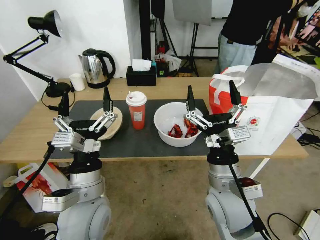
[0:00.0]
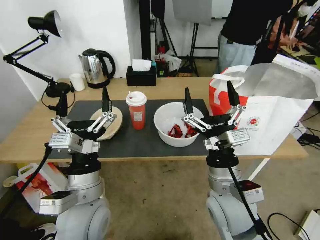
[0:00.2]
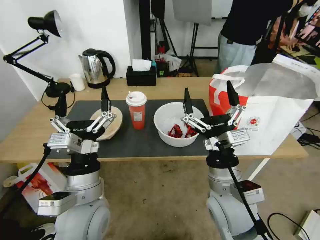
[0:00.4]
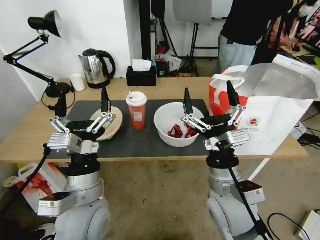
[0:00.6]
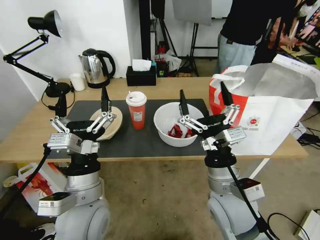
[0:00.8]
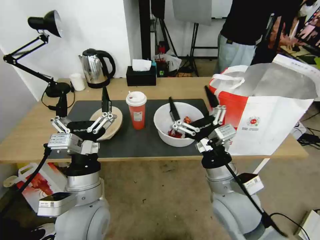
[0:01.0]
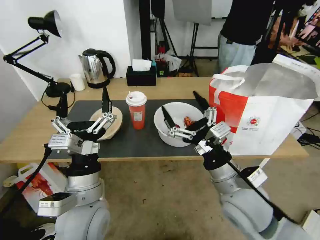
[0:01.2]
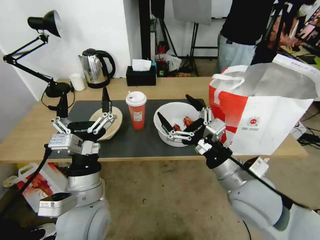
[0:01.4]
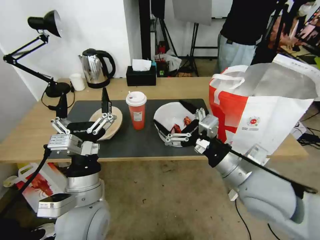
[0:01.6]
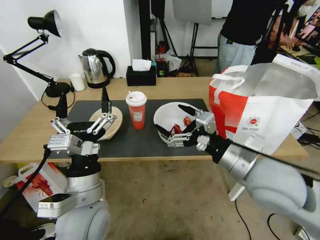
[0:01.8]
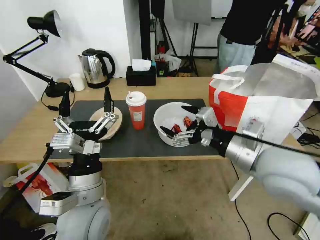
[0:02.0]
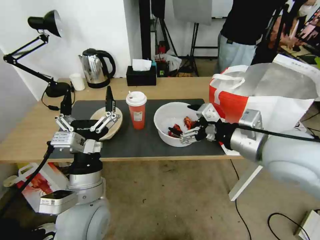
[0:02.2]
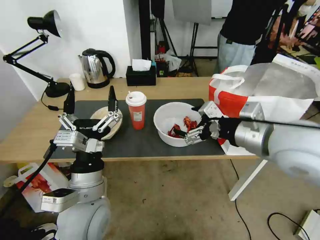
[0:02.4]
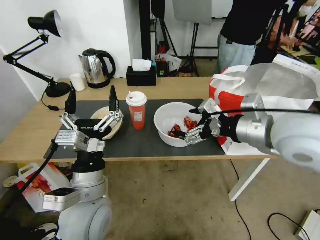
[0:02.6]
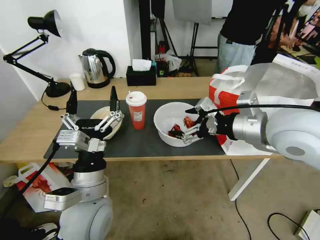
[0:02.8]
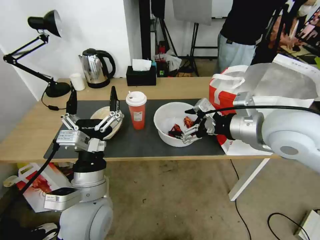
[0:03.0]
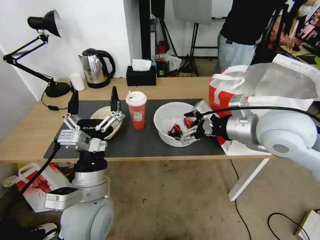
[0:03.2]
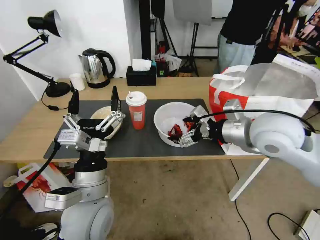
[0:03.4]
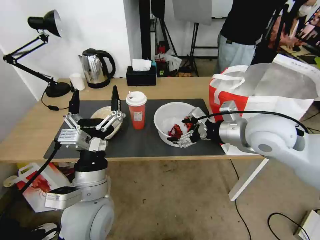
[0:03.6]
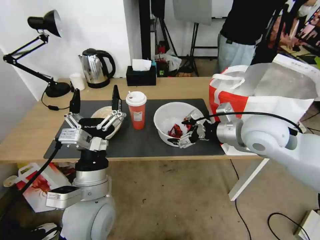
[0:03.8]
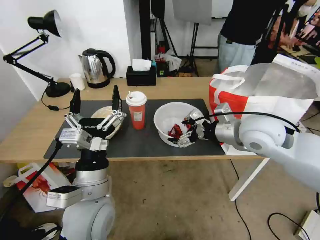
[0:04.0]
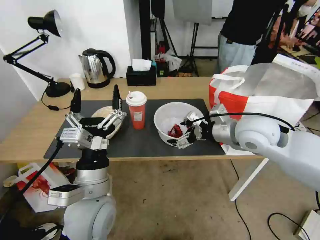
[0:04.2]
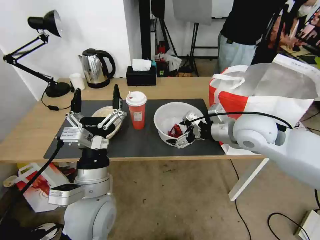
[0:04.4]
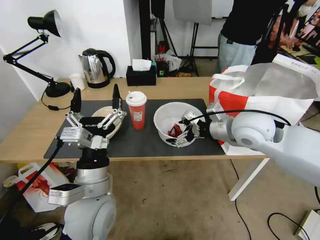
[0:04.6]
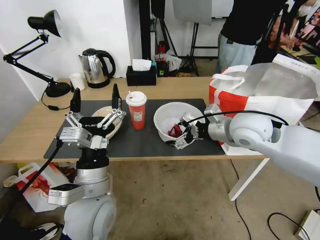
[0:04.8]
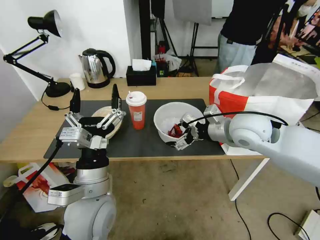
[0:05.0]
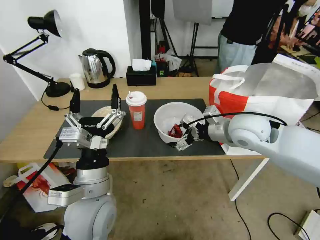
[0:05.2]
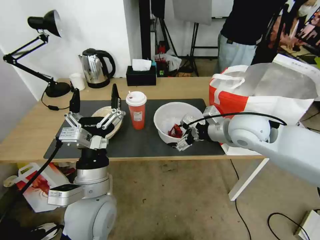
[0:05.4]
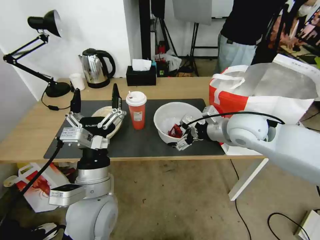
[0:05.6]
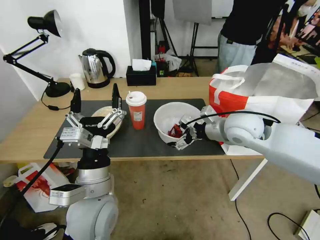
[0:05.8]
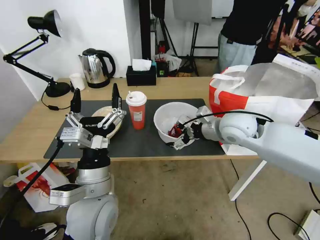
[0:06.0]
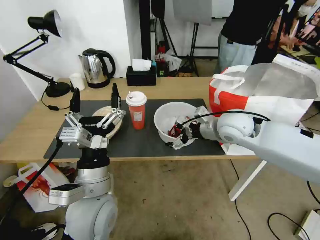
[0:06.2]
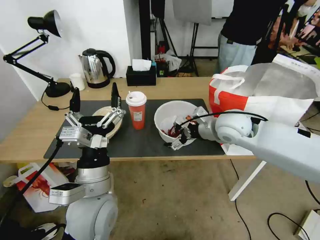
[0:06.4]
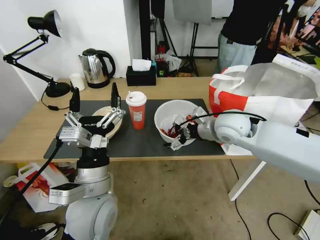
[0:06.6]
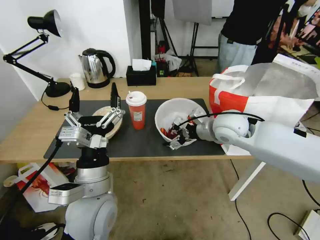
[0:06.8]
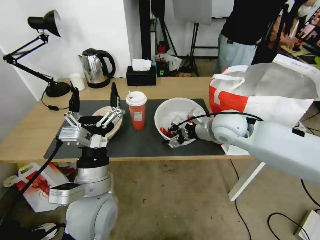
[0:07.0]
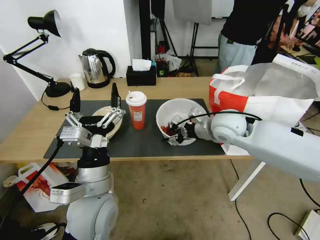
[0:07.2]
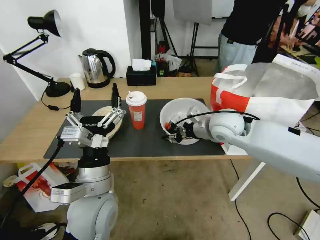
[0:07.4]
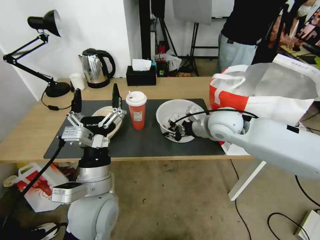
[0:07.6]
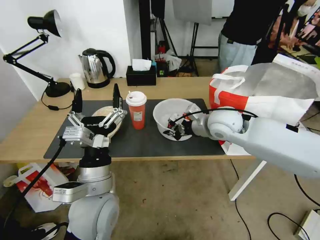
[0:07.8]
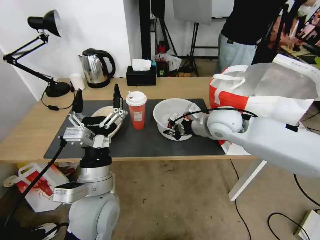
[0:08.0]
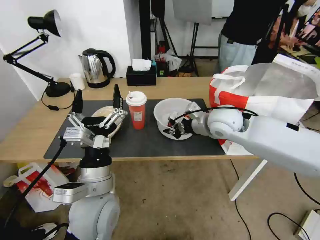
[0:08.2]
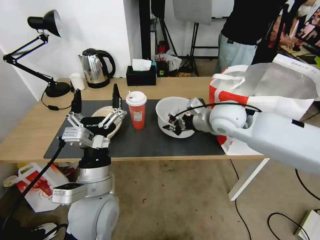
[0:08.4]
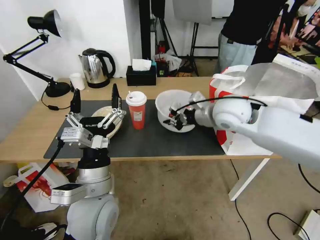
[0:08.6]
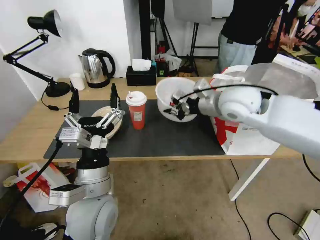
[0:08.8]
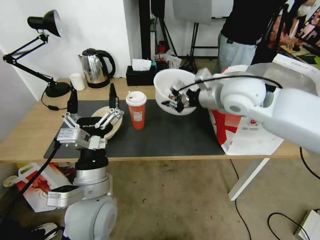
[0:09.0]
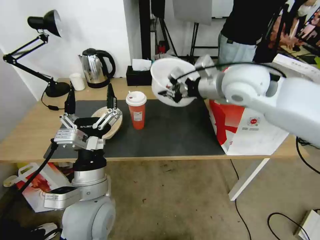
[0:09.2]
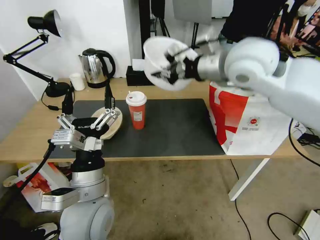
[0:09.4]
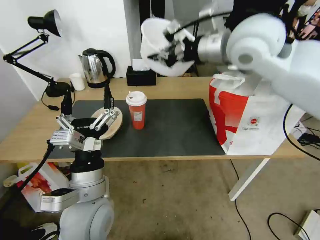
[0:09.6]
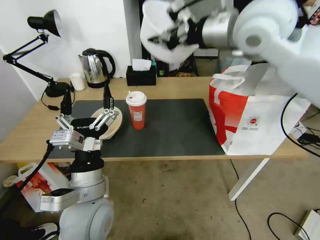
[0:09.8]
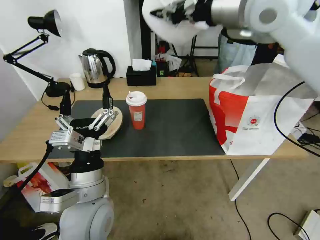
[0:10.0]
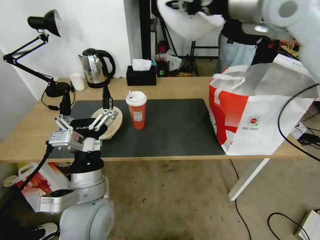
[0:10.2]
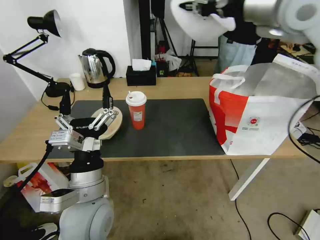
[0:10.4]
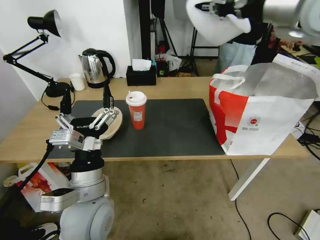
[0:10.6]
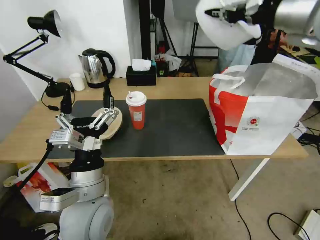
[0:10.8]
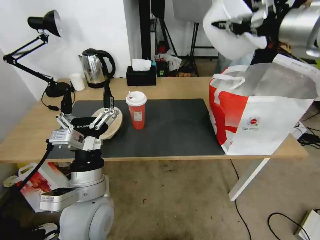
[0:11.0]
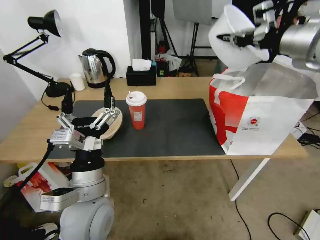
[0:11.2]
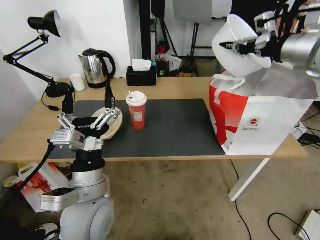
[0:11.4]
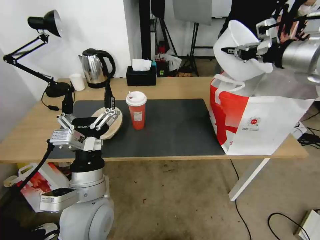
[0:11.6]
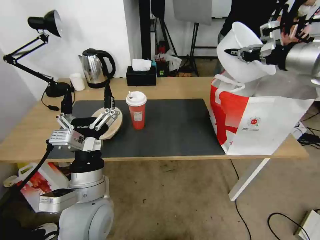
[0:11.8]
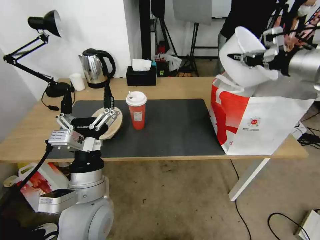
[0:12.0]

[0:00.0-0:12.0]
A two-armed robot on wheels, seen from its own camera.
Task of the whole recording: Pick up the trash from the table and place it into the takeout bag.
0:01.6 to 0:03.0: The right gripper goes some 15 cm upward and forward.
0:03.0 to 0:04.4: The right gripper goes about 10 cm downward and forward.
0:04.4 to 0:06.0: There are only small adjustments of the grippers.
0:06.0 to 0:07.6: The right gripper closes up.
0:07.6 to 0:09.0: The right gripper goes some 10 cm upward.
0:09.0 to 0:10.4: The right gripper shifts roughly 20 cm upward.
0:10.4 to 0:12.0: The right gripper heads to the right and downward, covering about 20 cm.

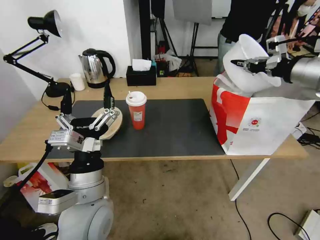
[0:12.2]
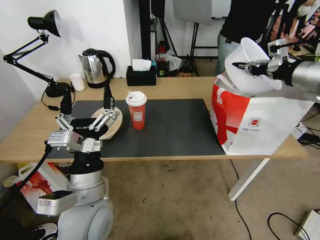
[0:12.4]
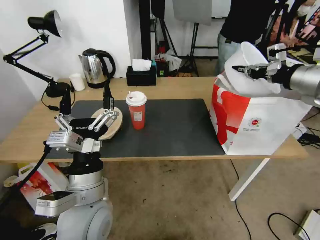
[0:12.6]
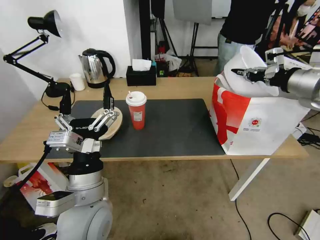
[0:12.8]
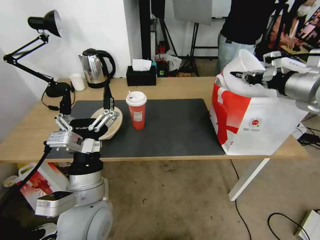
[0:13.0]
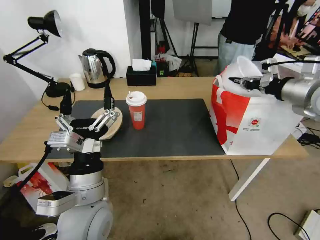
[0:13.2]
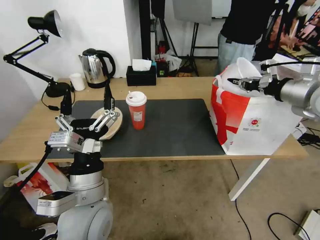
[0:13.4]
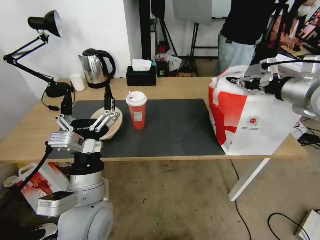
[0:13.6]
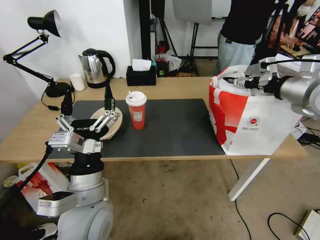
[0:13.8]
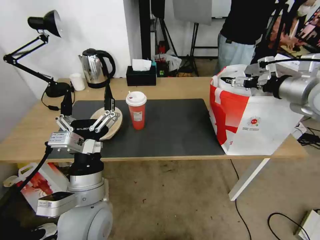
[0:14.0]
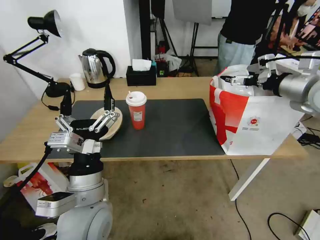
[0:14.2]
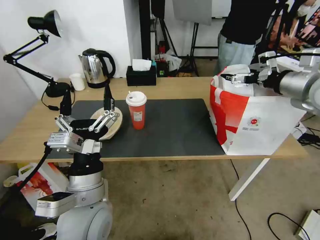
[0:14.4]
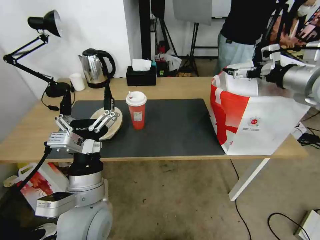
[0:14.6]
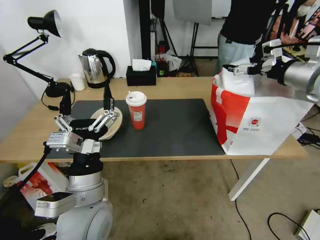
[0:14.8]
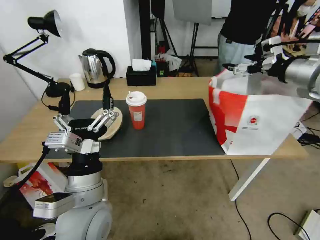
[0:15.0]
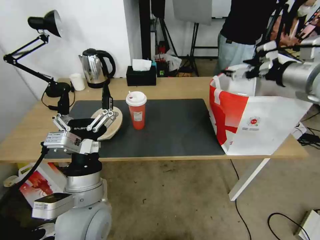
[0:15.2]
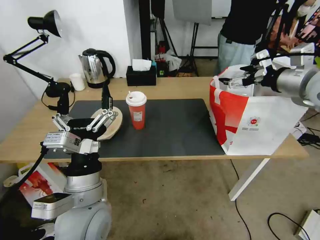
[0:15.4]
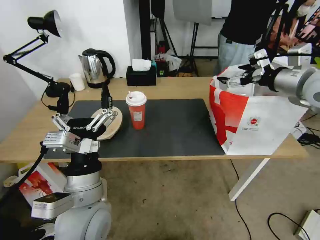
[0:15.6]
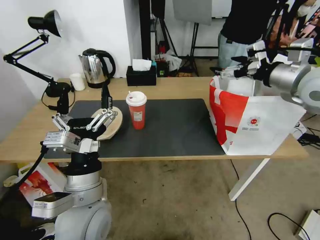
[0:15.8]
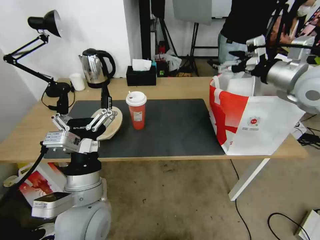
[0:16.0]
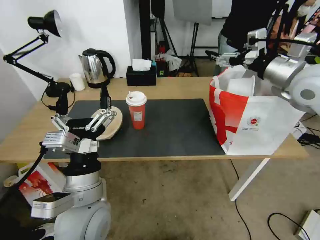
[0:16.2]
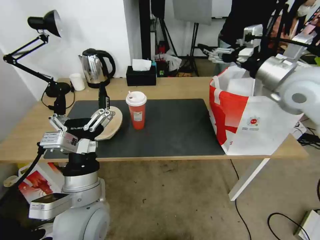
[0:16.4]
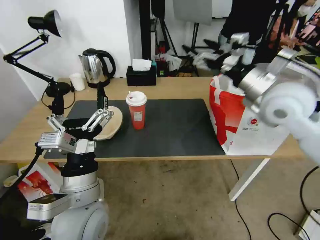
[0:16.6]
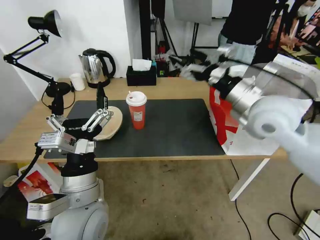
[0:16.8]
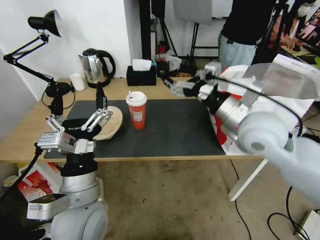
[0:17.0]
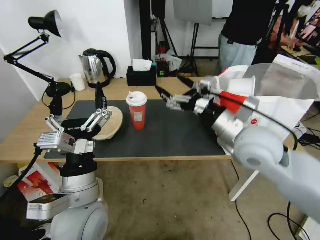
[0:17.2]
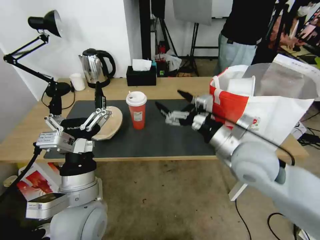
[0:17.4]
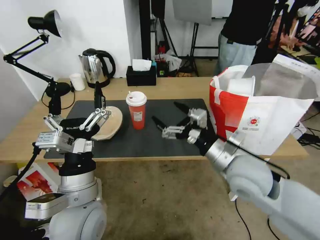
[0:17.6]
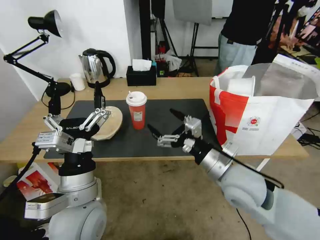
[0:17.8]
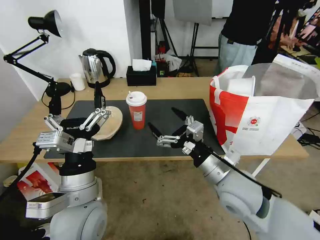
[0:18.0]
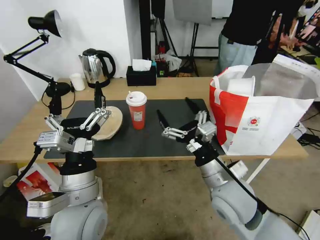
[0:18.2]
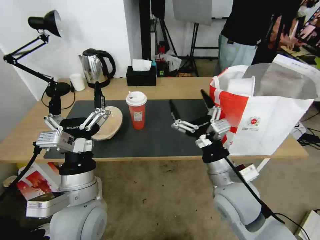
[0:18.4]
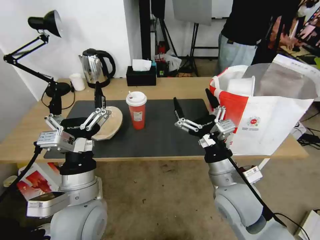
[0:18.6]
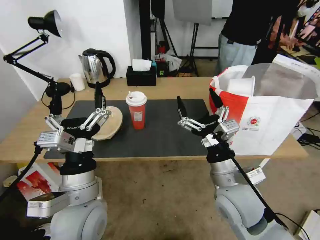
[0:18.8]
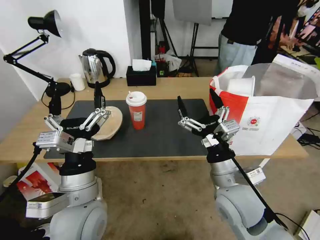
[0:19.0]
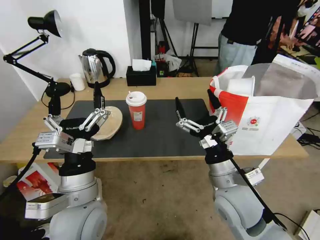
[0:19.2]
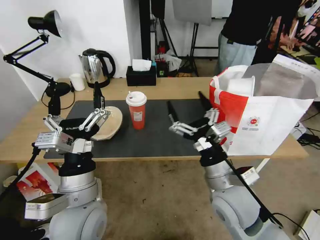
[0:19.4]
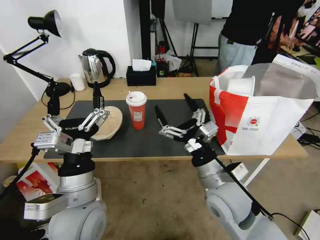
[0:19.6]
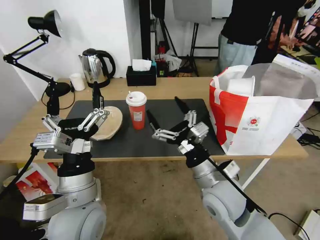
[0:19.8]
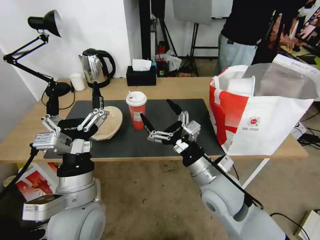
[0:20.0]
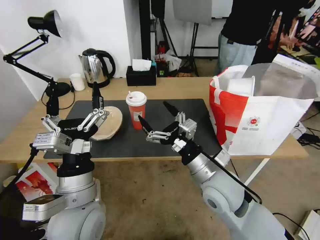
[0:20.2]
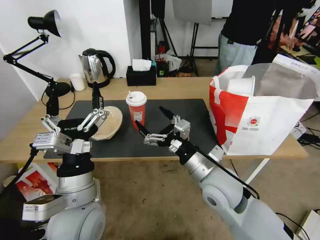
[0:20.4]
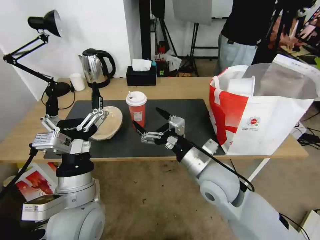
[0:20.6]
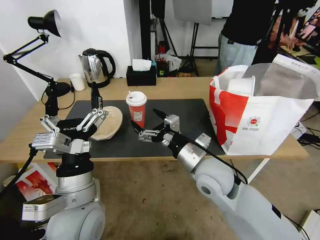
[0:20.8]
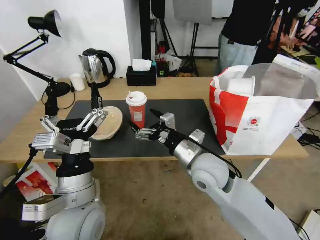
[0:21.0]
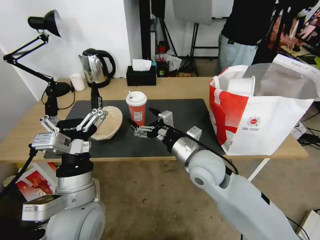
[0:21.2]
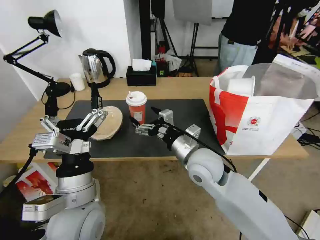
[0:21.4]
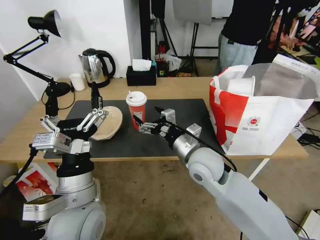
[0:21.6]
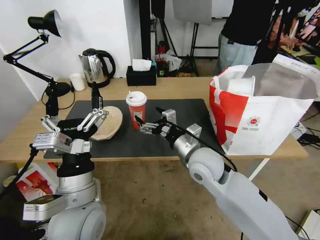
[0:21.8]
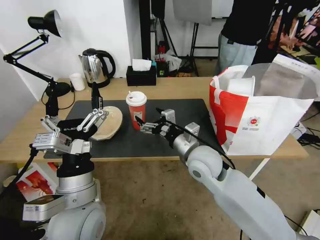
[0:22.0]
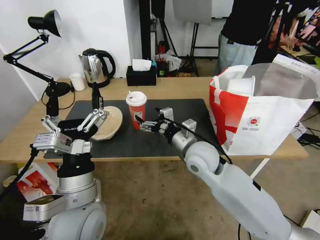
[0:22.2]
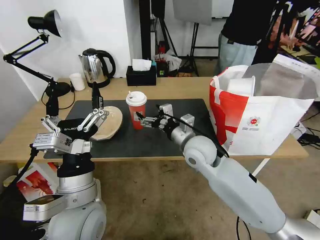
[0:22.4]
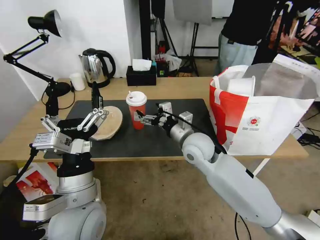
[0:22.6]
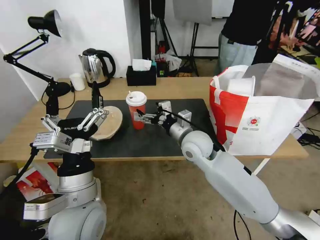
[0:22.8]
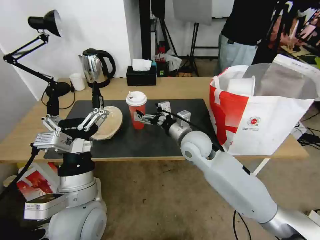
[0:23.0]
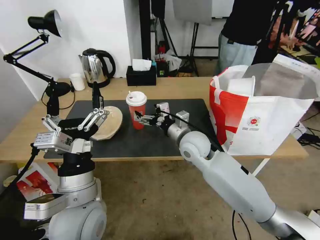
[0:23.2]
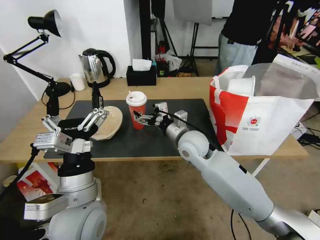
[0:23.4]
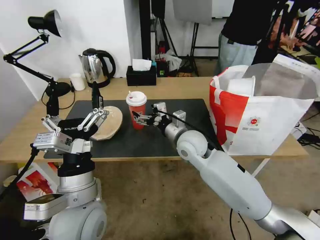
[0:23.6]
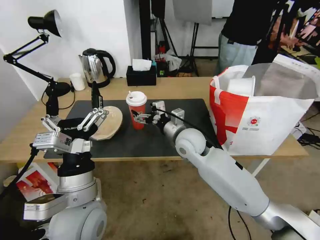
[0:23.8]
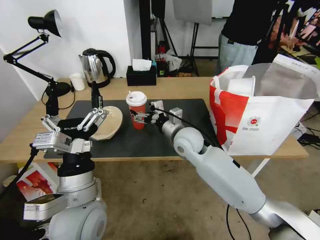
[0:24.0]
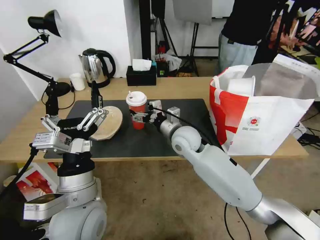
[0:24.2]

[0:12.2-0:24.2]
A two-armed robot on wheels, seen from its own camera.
Task of the whole recording: Pick up the trash from the table and place it into the takeout bag.
0:12.2 to 0:13.8: The right gripper travels downward by roughly 5 cm, and opens its fingers.
0:13.8 to 0:15.2: The right gripper opens its fingers.
0:15.2 to 0:16.6: The right gripper moves to the left, approximately 10 cm.
0:16.6 to 0:18.2: The right gripper goes roughly 25 cm downward, backward and to the left.
0:18.2 to 0:19.8: The grippers make only small movements.
0:19.8 to 0:21.2: The right gripper shifts some 5 cm forward.
0:21.2 to 0:22.6: The right gripper is displaced forward by about 5 cm.
0:22.6 to 0:24.2: The grippers make only small movements.
